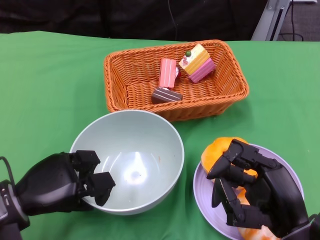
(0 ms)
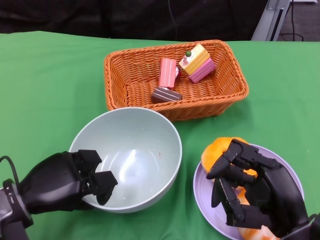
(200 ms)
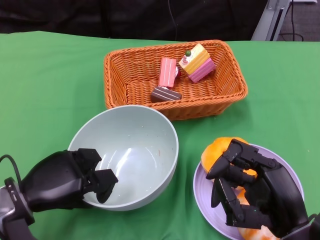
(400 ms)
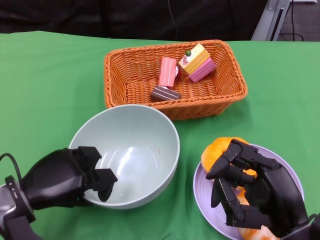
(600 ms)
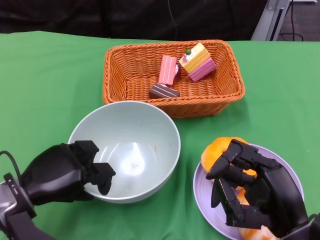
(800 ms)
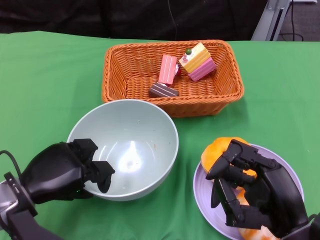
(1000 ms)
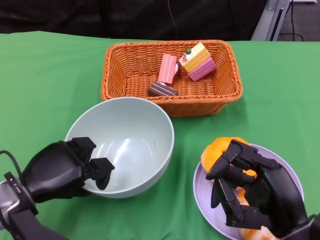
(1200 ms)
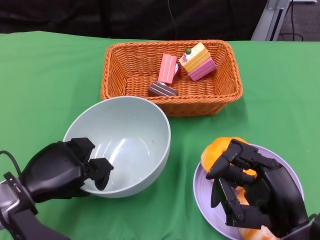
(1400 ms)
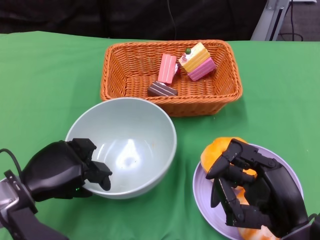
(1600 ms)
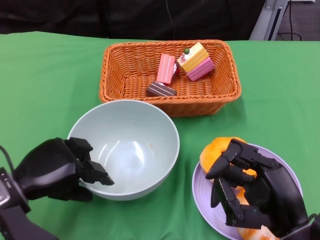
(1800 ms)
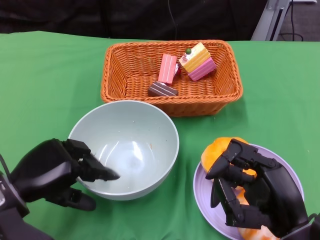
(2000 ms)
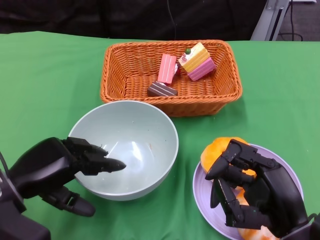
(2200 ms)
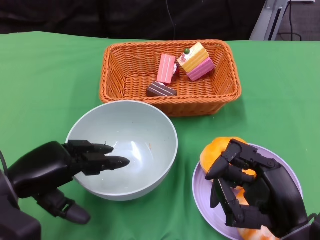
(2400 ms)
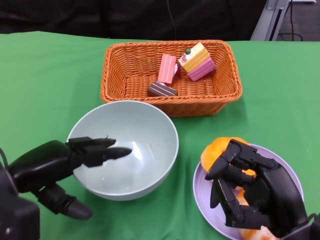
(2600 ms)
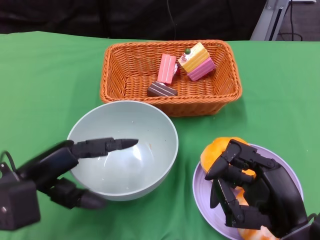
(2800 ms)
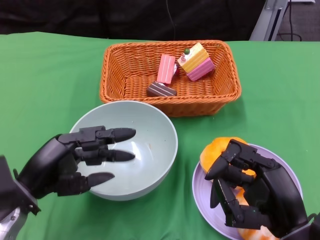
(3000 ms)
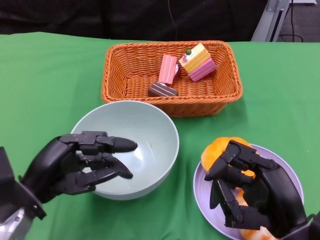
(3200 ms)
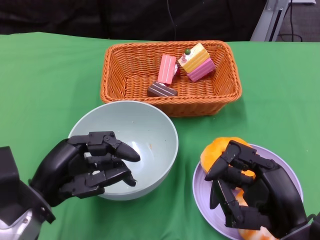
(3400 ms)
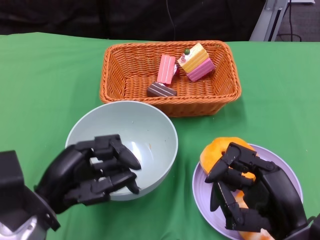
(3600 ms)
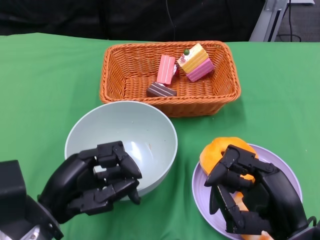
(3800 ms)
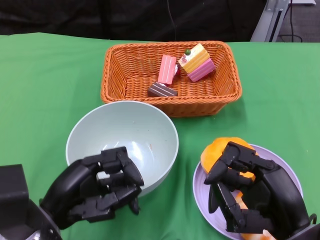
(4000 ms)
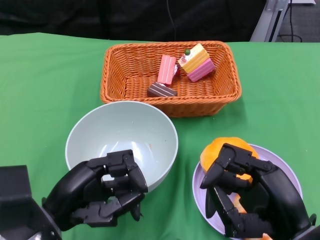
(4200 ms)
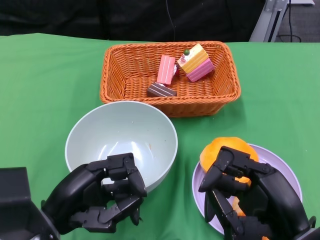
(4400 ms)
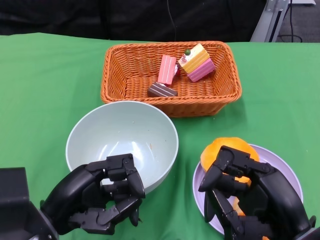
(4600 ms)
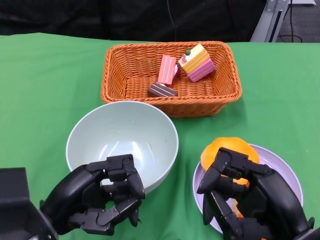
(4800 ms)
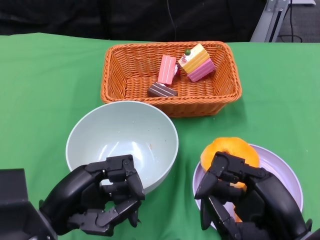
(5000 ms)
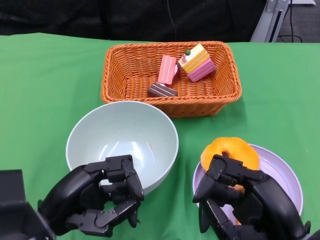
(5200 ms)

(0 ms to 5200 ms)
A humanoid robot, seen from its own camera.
Step, 0 ms - 2000 ms: Place the bowl on the table with the left gripper.
1800 ms - 3400 ms: The left hand moves roughly 5 cm.
